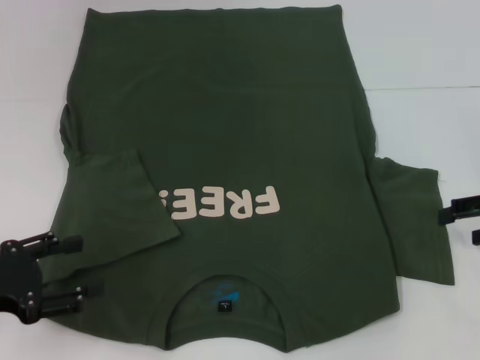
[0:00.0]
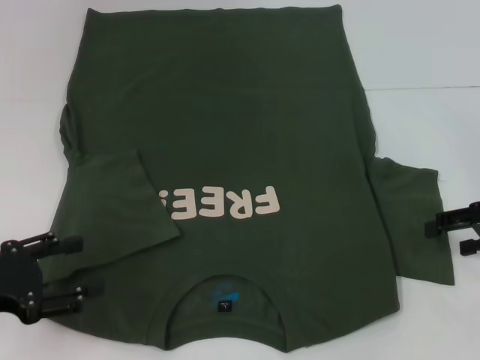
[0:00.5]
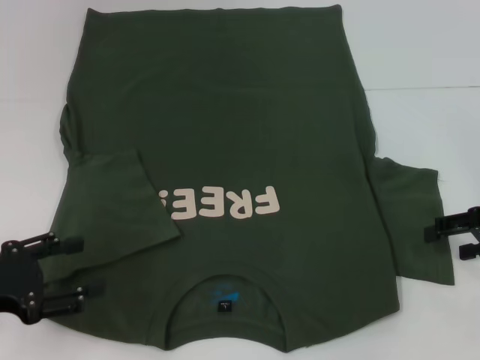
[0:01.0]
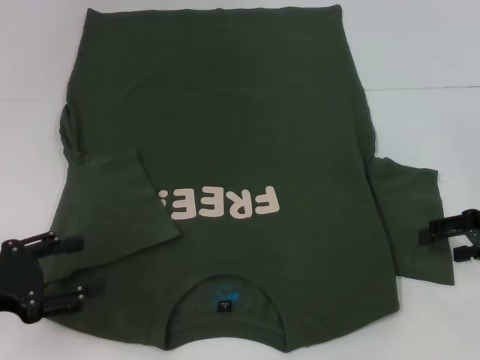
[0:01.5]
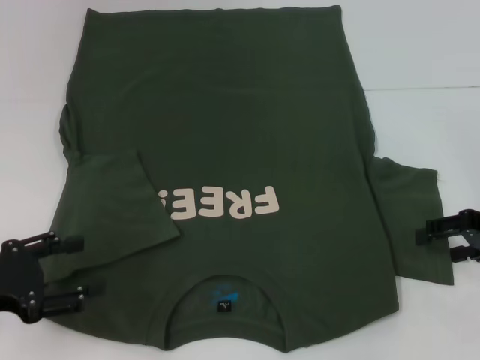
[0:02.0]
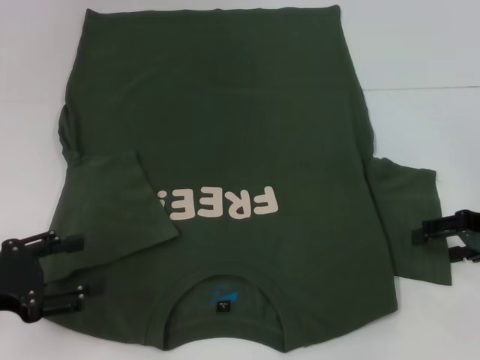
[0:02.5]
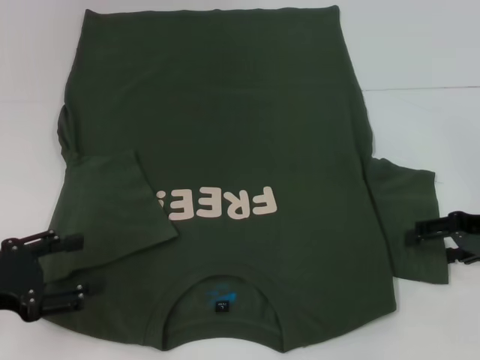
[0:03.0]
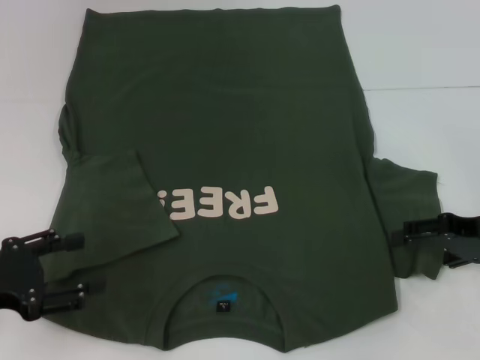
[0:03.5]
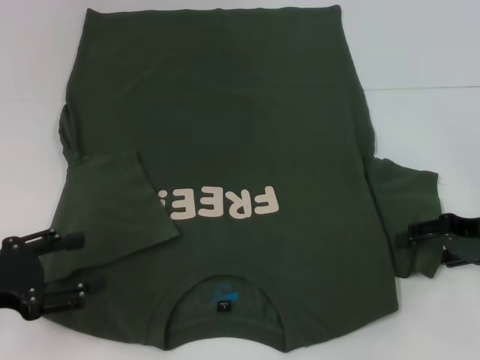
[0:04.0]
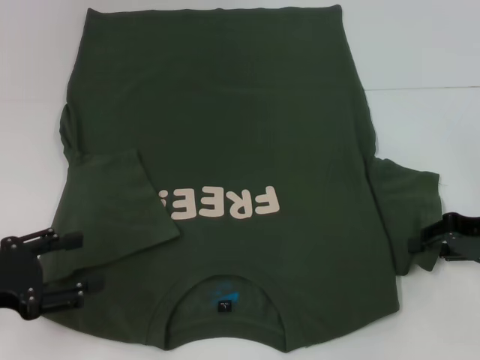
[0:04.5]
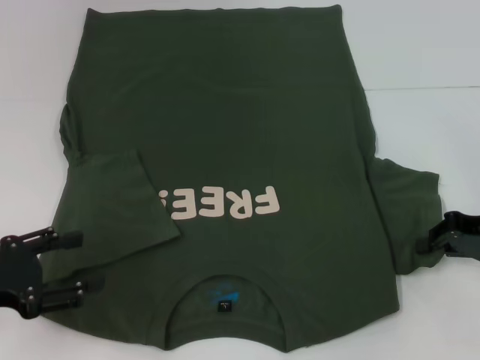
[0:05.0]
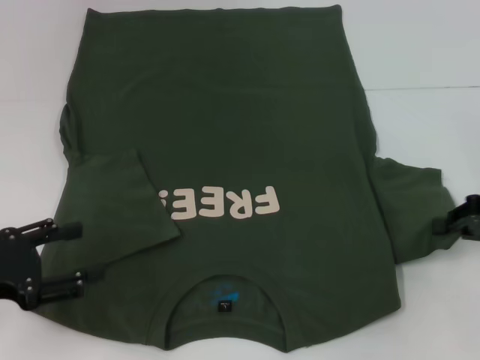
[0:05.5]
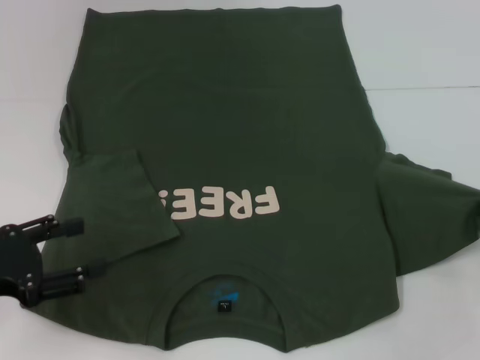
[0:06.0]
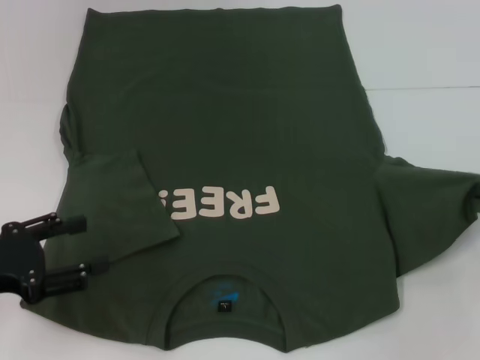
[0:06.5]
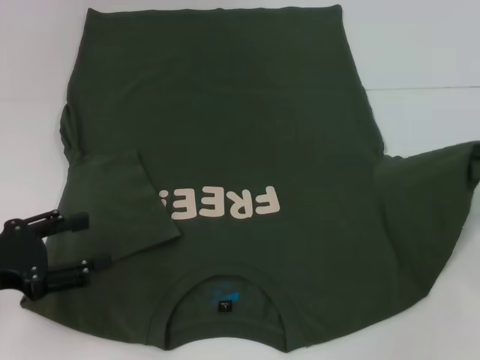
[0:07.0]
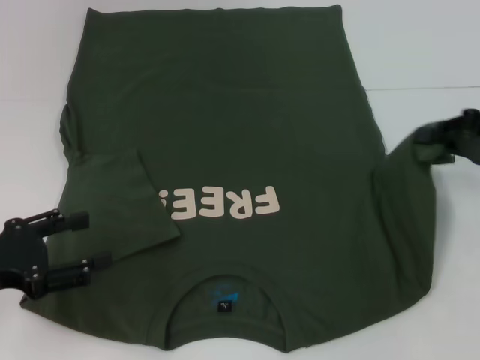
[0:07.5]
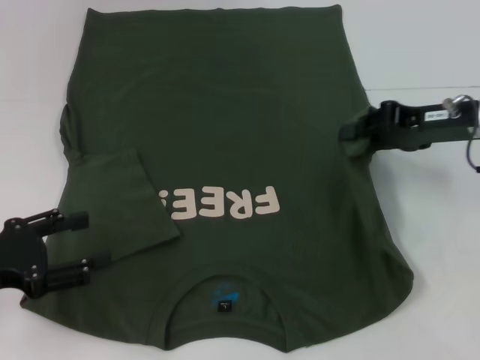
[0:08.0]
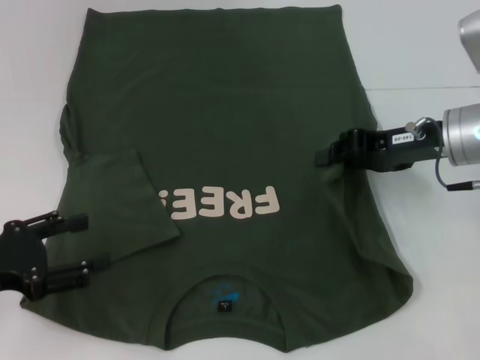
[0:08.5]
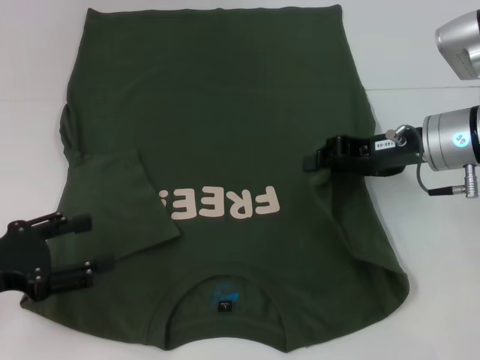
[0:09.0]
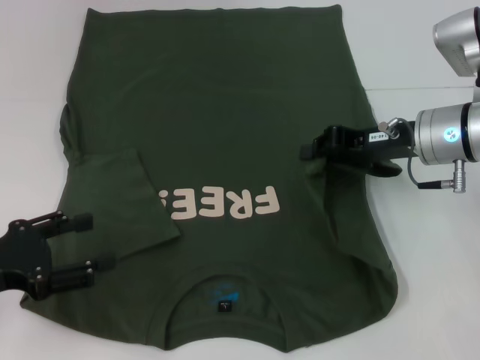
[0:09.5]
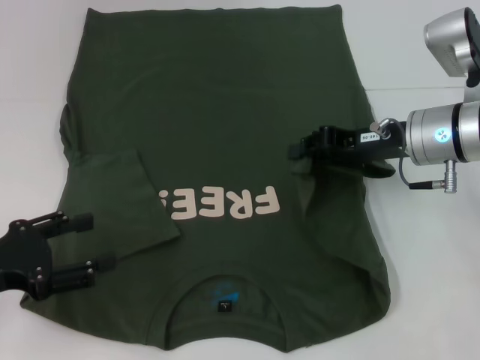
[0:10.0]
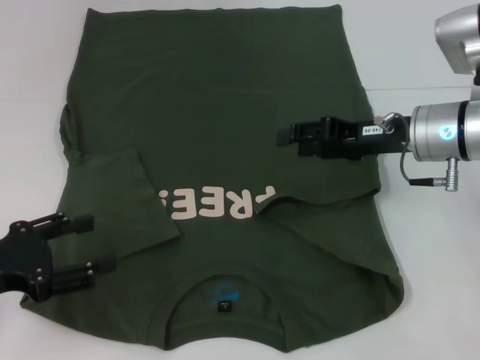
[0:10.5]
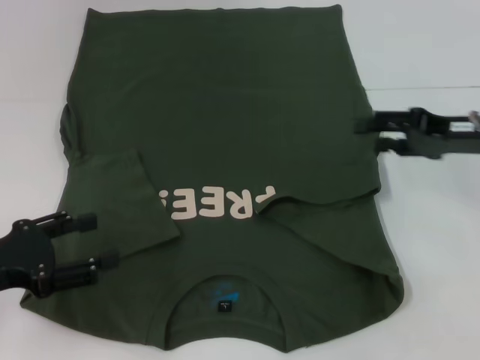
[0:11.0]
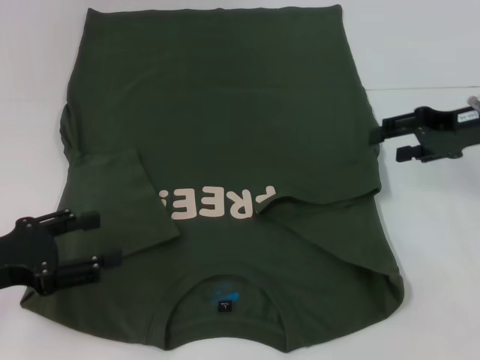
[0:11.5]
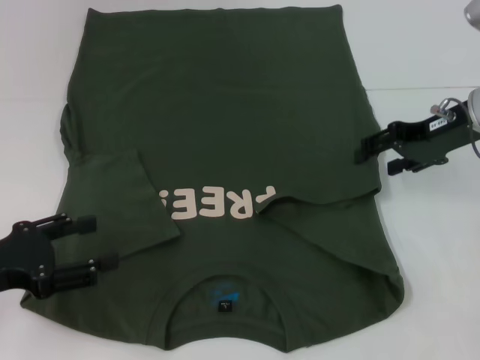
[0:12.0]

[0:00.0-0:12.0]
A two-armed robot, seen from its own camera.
0:00.0 to 0:04.0: The grippers make only small movements.
0:04.0 to 0:06.0: The right gripper moves to the right, some 5 cm, and closes up.
0:06.0 to 0:08.0: The right gripper shifts roughly 15 cm to the left and forward.
0:08.0 to 0:10.0: The right gripper shifts about 5 cm to the left.
0:10.0 to 0:12.0: The right gripper travels to the right by some 5 cm, and opens.

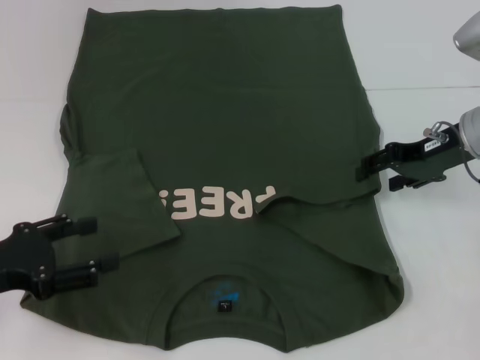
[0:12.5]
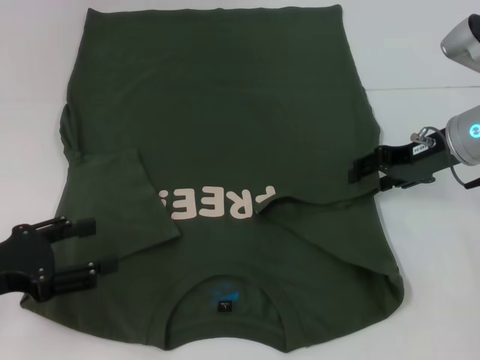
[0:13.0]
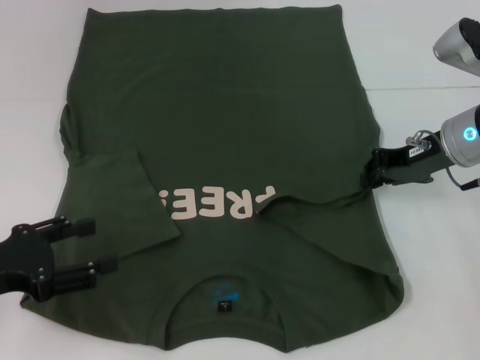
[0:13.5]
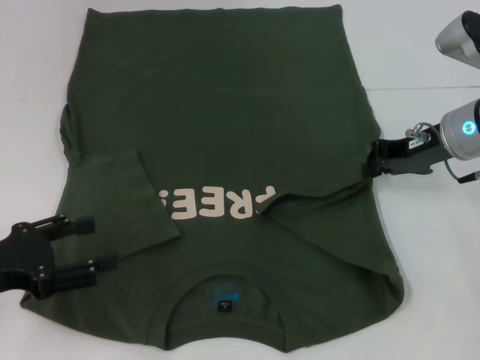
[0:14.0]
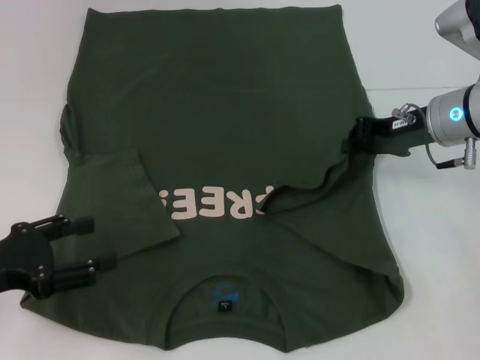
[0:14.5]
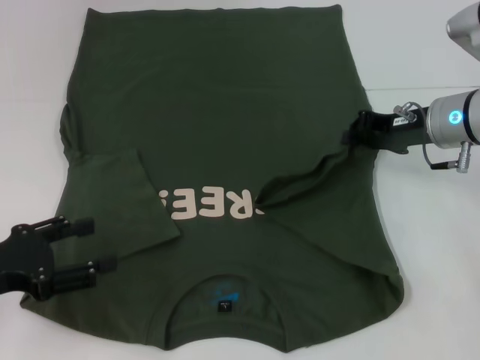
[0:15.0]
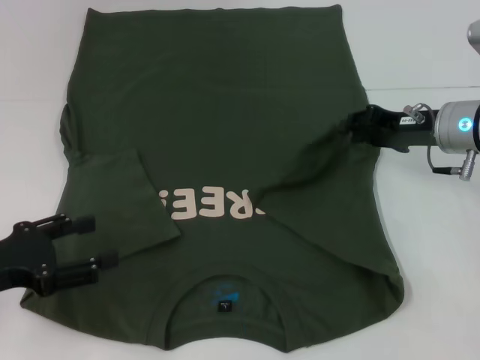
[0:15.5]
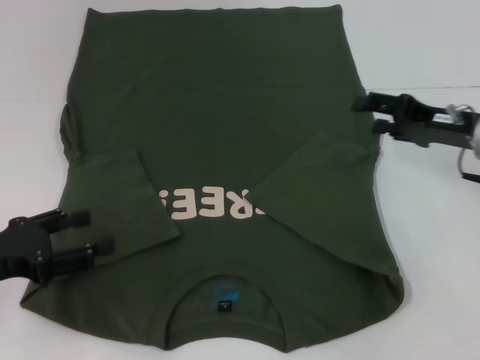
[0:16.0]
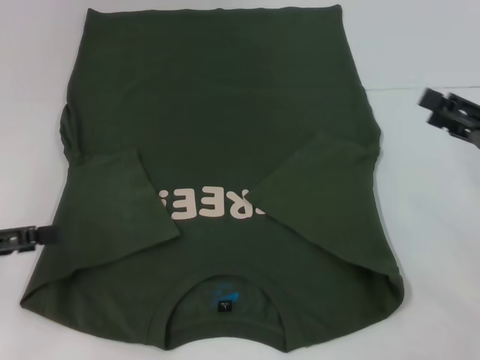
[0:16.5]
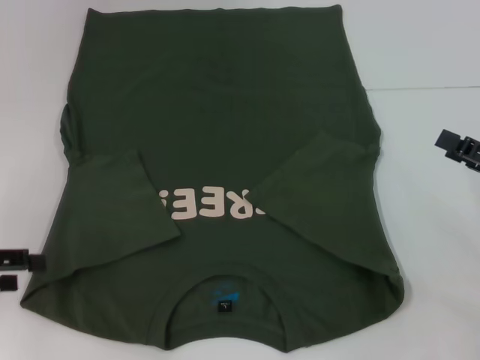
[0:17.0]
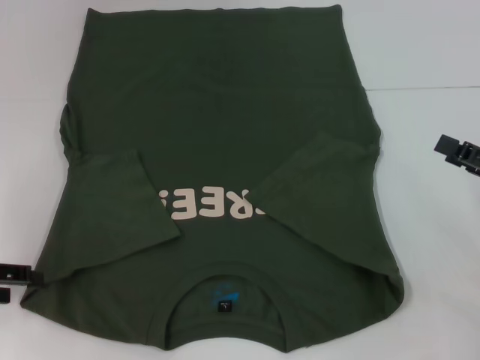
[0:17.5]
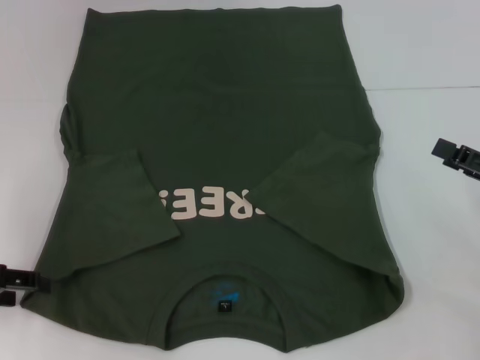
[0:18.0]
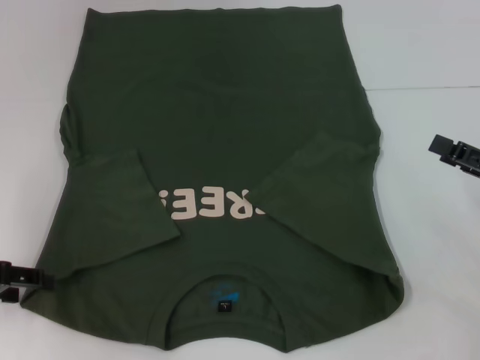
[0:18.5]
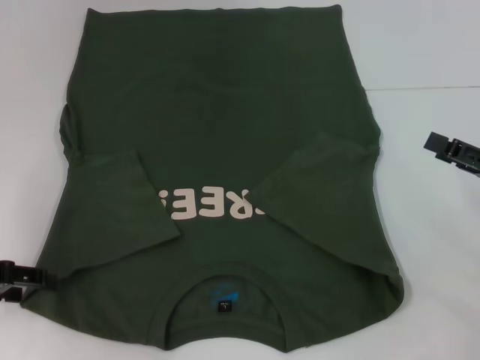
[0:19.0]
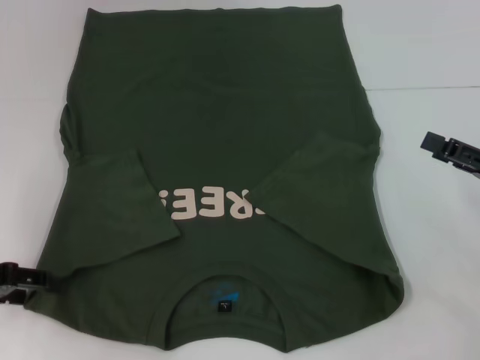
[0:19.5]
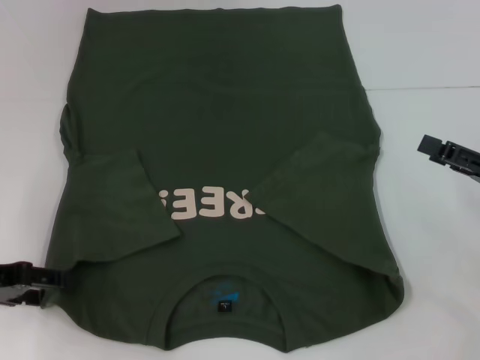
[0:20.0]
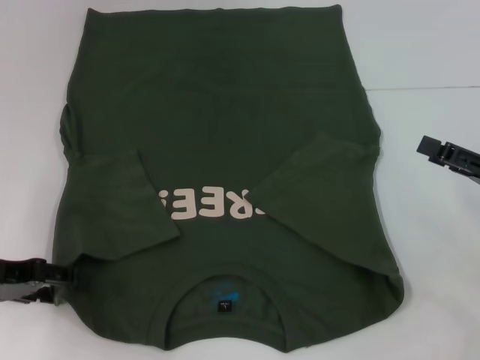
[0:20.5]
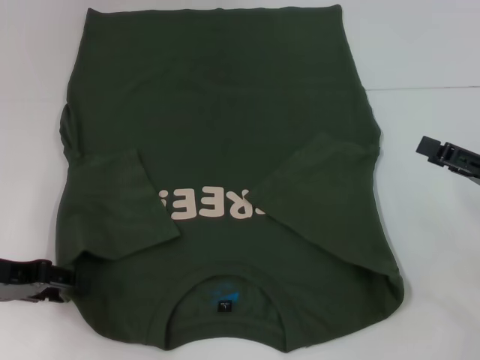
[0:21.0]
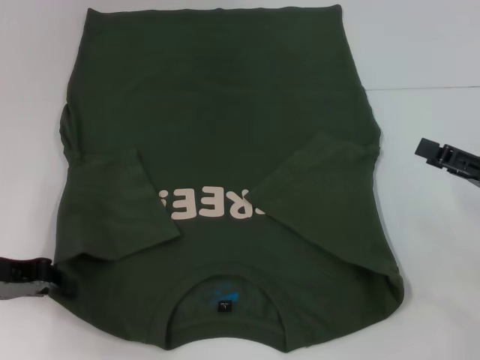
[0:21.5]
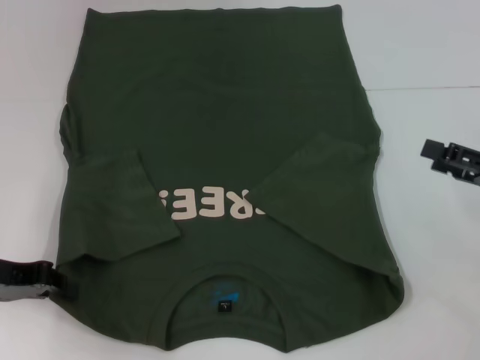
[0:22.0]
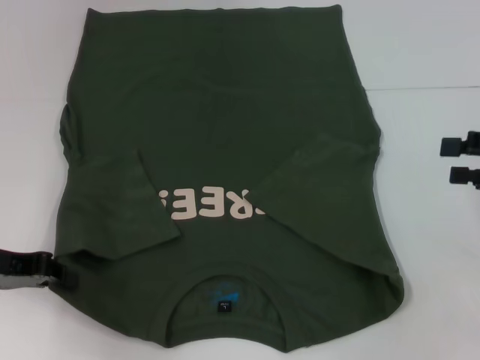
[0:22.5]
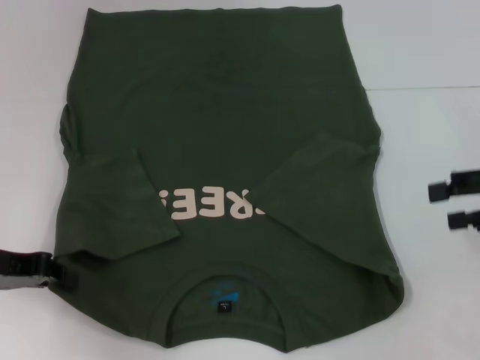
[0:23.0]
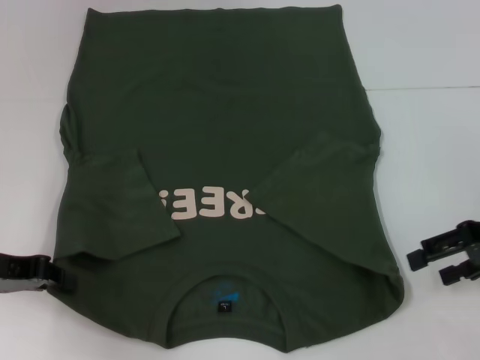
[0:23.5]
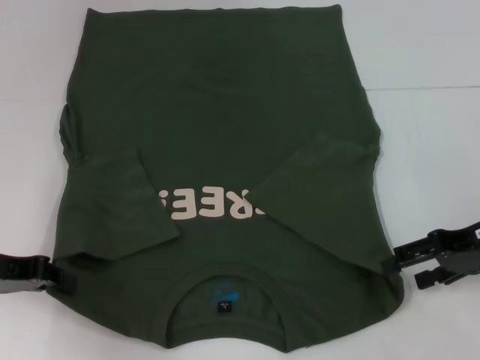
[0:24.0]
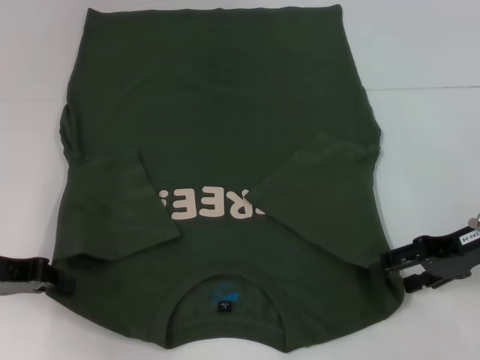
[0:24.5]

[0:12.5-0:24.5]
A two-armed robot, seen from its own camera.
Step, 0:12.5 to 0:17.5: Fold the bottom right sleeve with your right hand.
Step, 0:18.0 to 0:21.5: Grab the bottom left corner with your left hand.
0:12.5 to 0:14.5: The right gripper closes its fingers.
0:14.5 to 0:16.5: The right gripper goes some 15 cm backward and to the right, and opens its fingers. The left gripper ends up about 5 cm from where it was.
0:18.5 to 0:20.5: The grippers move only a little.
0:20.5 to 0:22.5: The left gripper closes its fingers. The right gripper heads upward, covering about 5 cm.
0:22.5 to 0:24.5: The right gripper shifts about 10 cm to the left.

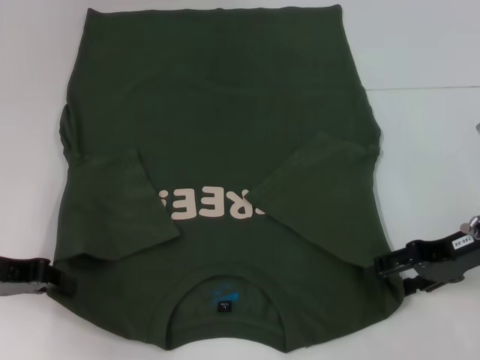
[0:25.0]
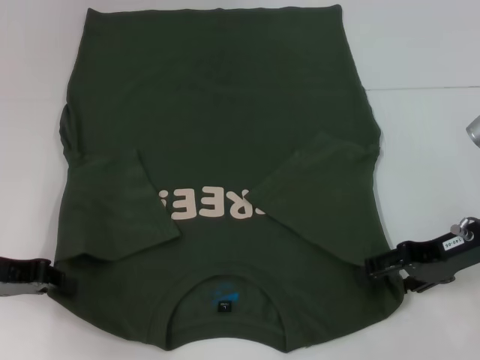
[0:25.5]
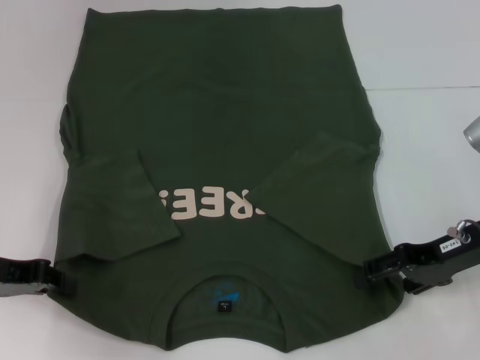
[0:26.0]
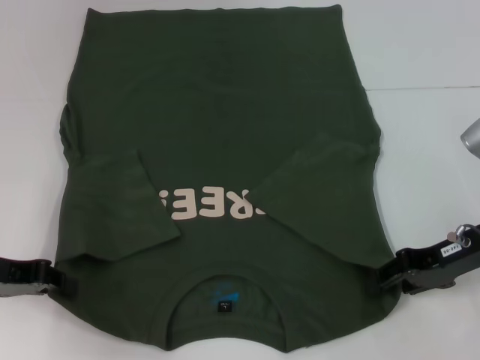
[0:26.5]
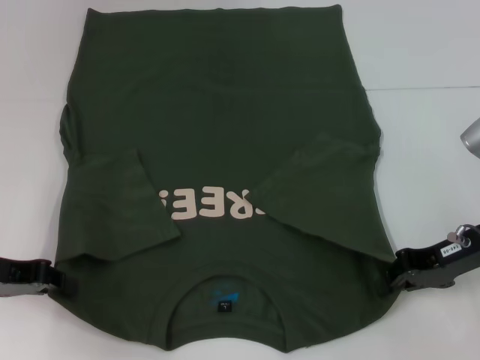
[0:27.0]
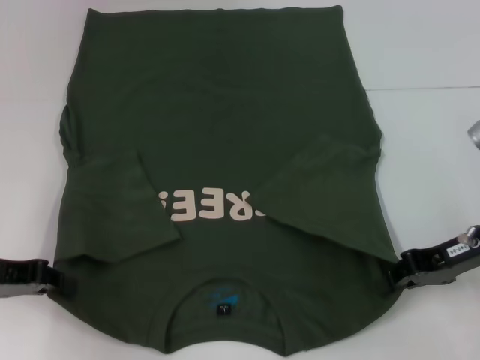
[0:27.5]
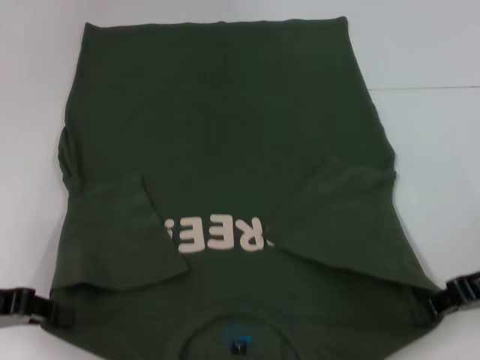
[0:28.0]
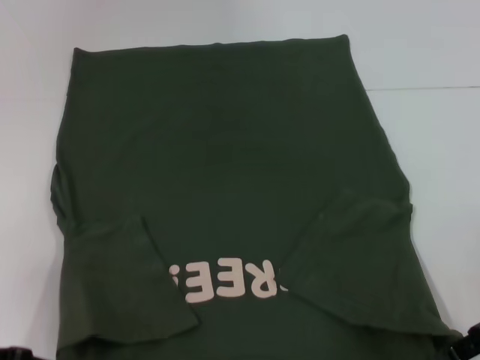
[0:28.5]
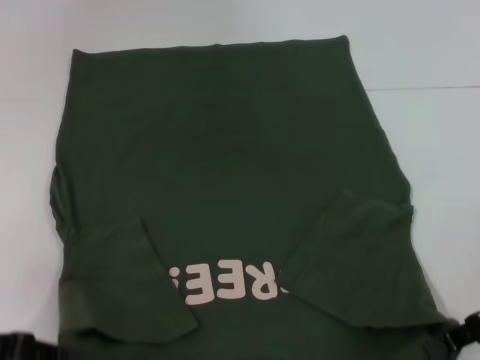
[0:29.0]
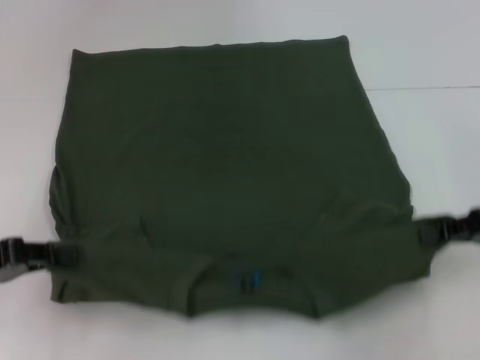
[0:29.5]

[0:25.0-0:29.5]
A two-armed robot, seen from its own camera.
Step, 0:25.0 to 0:27.5: Grab the bottom right corner with your right hand.
0:25.0 to 0:27.0: The right gripper closes.
0:27.0 to 0:29.5: The right gripper moves to the right, approximately 5 cm.
